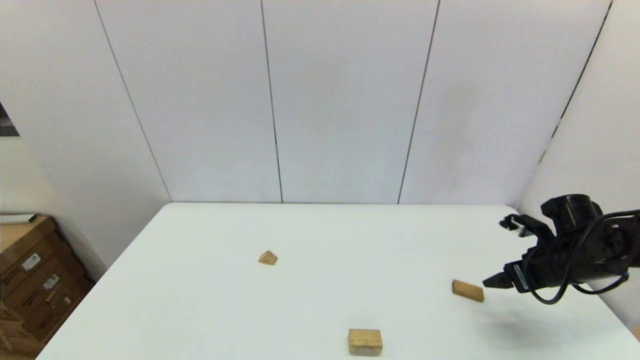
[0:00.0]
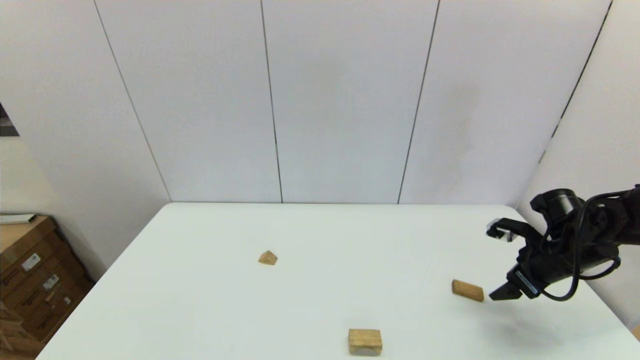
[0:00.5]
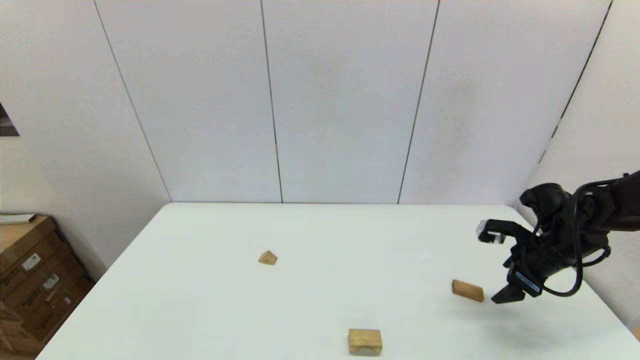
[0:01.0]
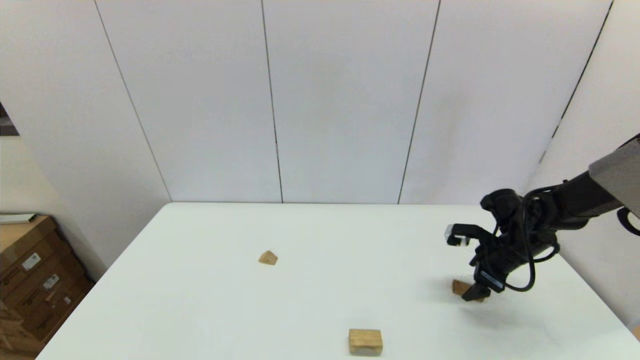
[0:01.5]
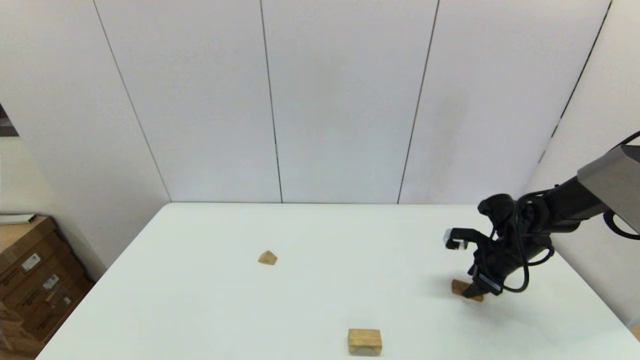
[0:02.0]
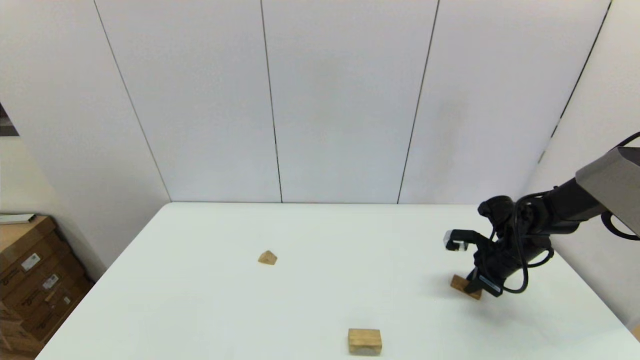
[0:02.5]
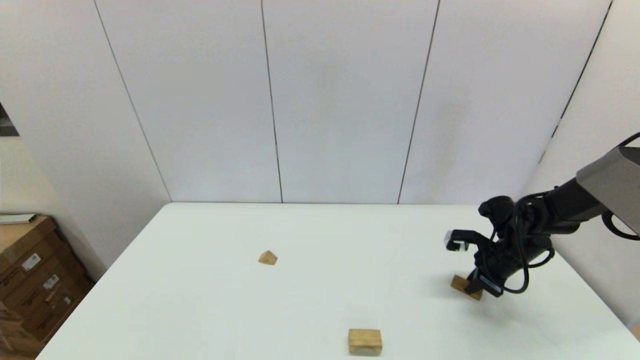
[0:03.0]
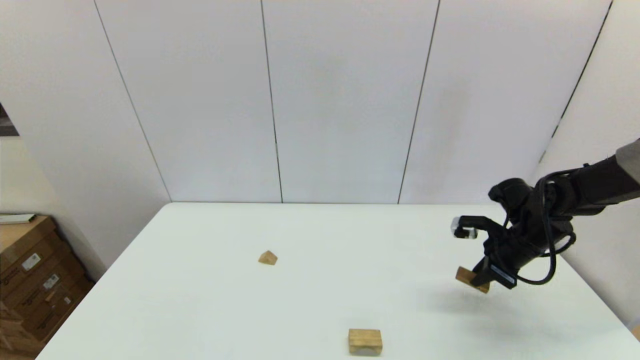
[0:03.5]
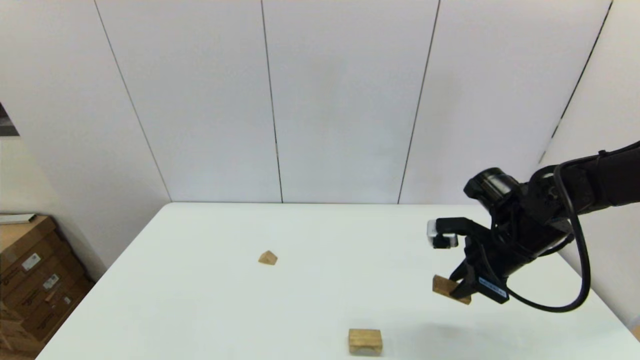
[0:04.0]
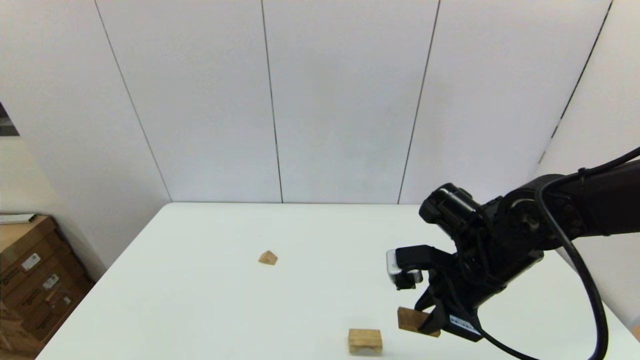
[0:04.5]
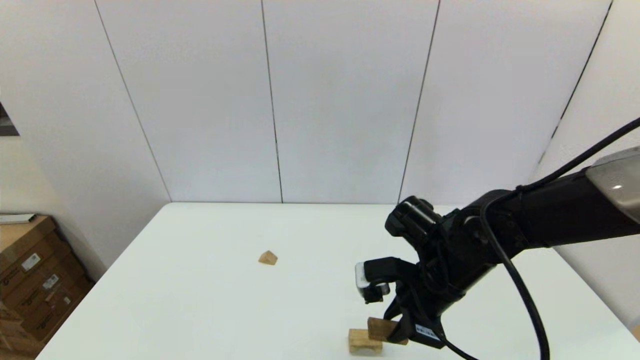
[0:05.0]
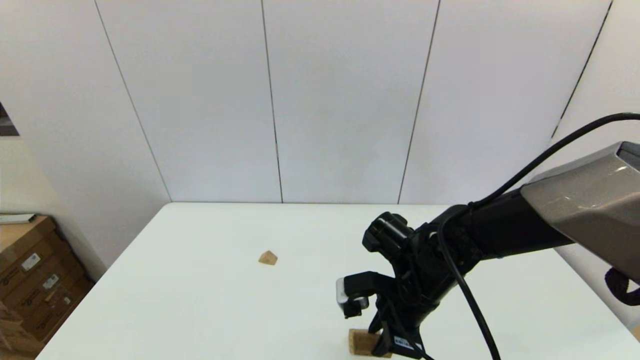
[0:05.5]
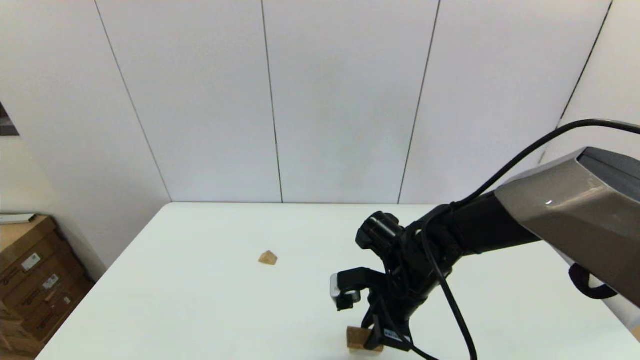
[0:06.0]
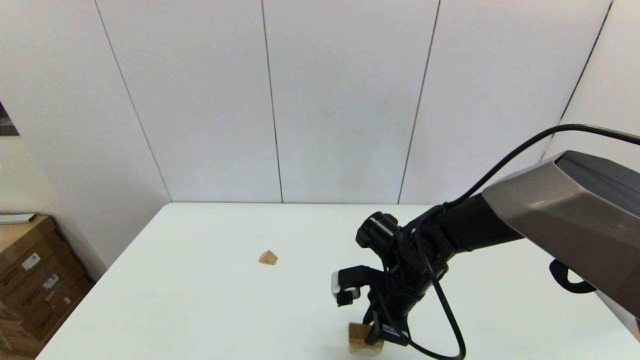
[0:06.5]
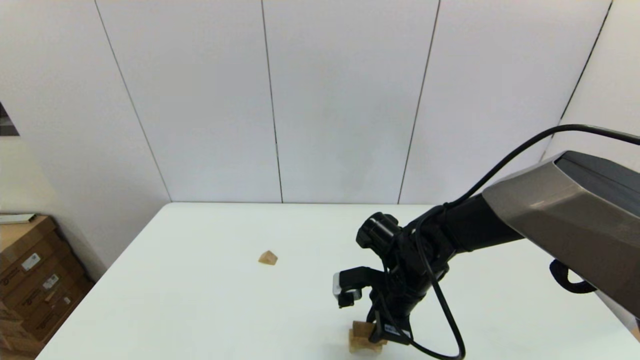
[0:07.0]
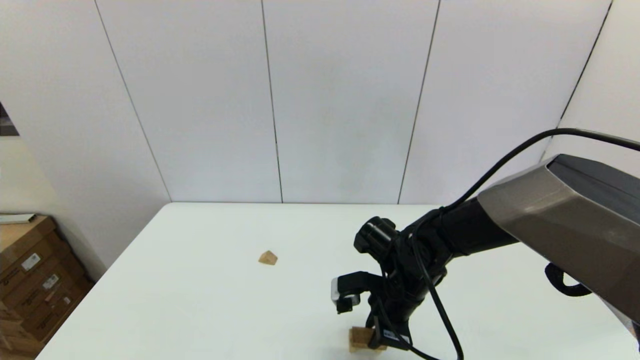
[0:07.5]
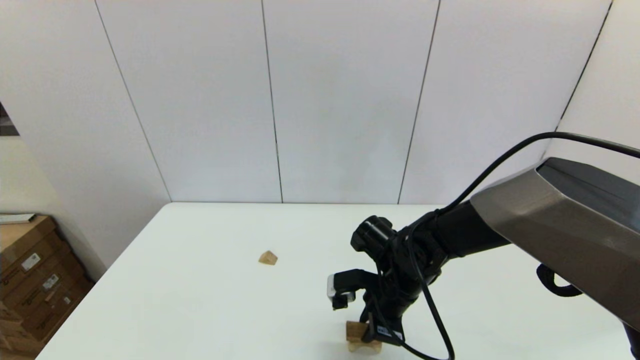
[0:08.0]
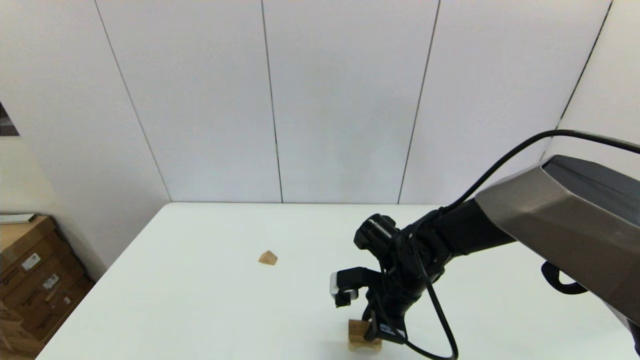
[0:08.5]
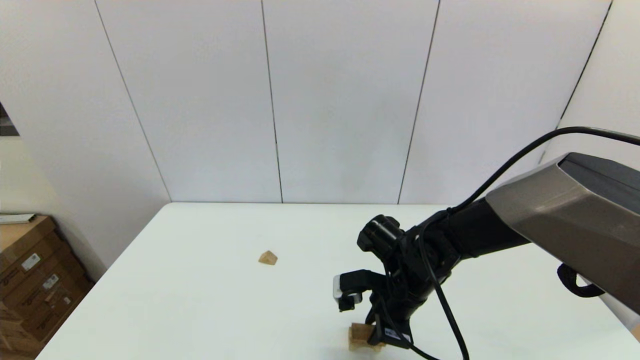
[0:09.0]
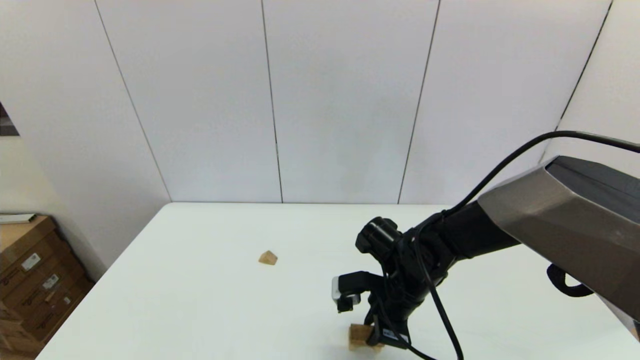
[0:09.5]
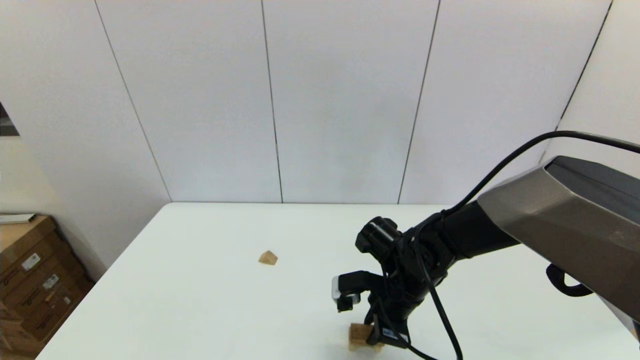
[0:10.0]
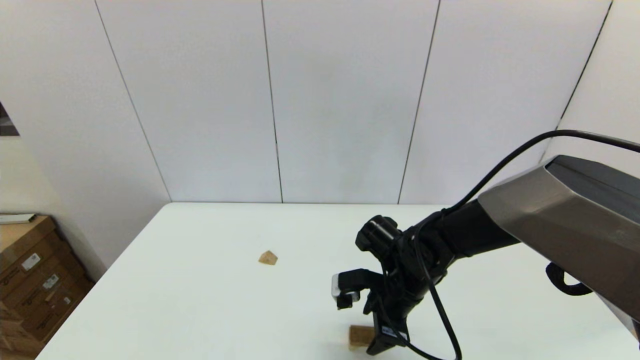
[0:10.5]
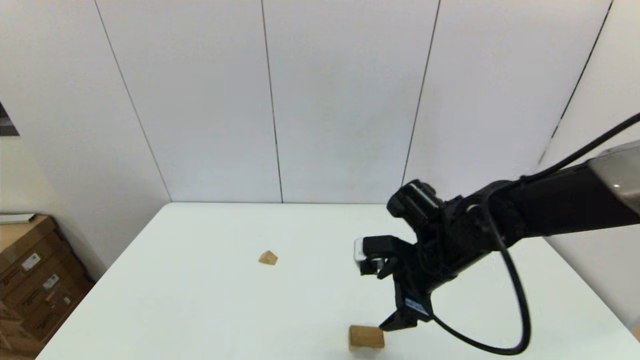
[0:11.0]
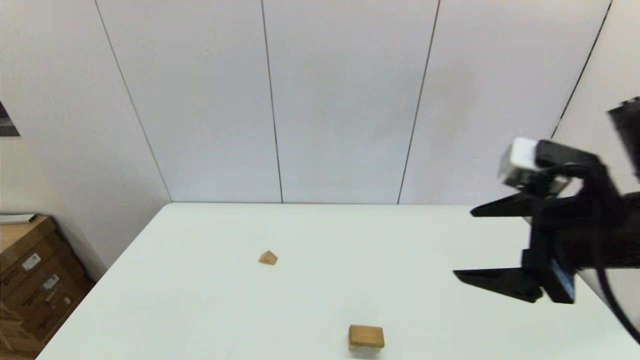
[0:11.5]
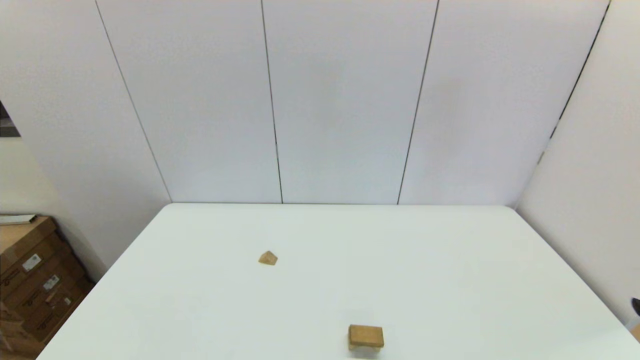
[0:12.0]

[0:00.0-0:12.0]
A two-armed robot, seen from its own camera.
Task of the whole recording: place the arched building blocks in the center of the table, set up the rectangular building blocks, and then set up the triangular building blocks.
Step, 0:00.0 to 0:02.0: Grasp the box-shaped block with the right gripper.
Step, 0:02.5 to 0:10.0: Place the box-shaped block onto the arch-shaped block with the right gripper.
0:00.0 to 0:02.0: The right gripper goes some 5 cm forward, and closes up.
0:02.0 to 0:04.0: The right gripper travels upward, to the left and backward by roughly 15 cm, and closes up.
0:04.0 to 0:06.0: The right gripper is displaced to the left by some 15 cm.
0:06.0 to 0:08.0: The grippers stay close to where they were, moving slightly.
0:08.0 to 0:10.0: The two grippers keep their place.
0:10.0 to 0:12.0: The right gripper heads backward, to the right and upward, covering some 40 cm, and opens.

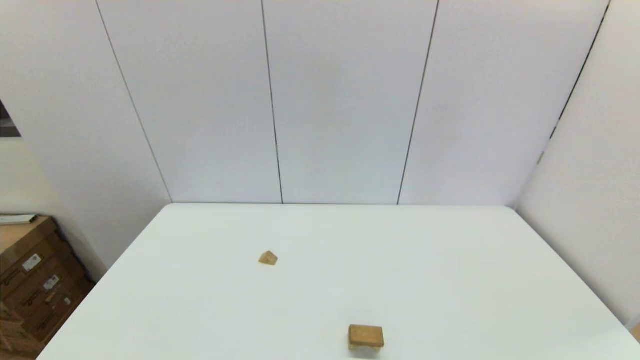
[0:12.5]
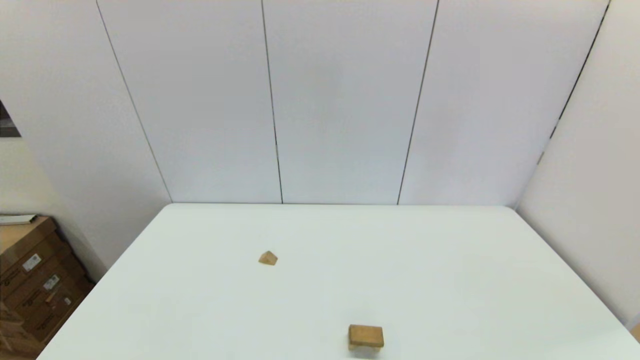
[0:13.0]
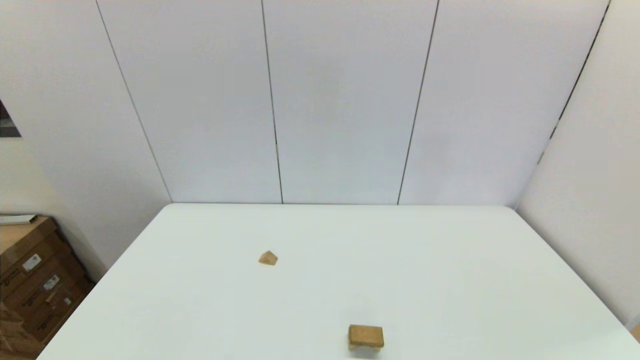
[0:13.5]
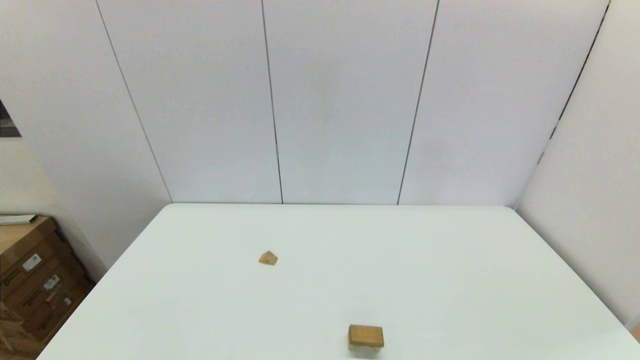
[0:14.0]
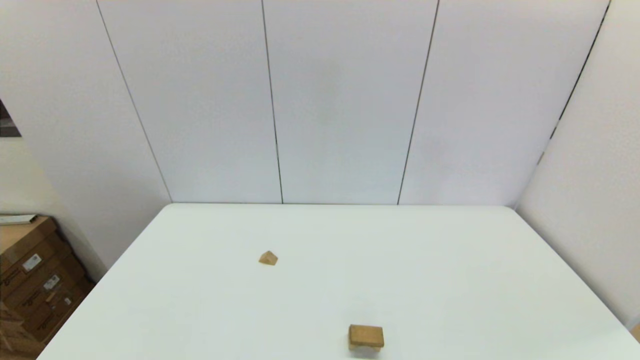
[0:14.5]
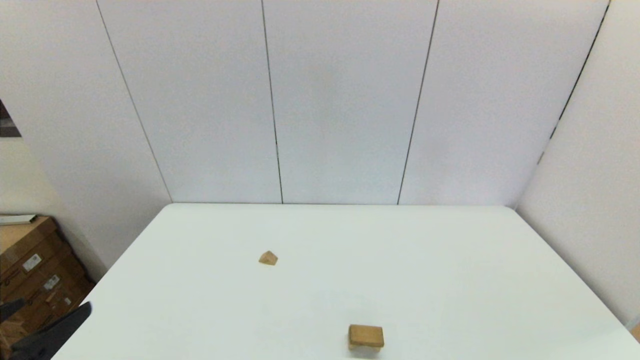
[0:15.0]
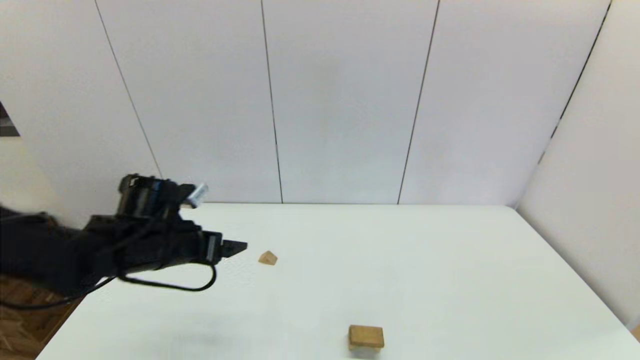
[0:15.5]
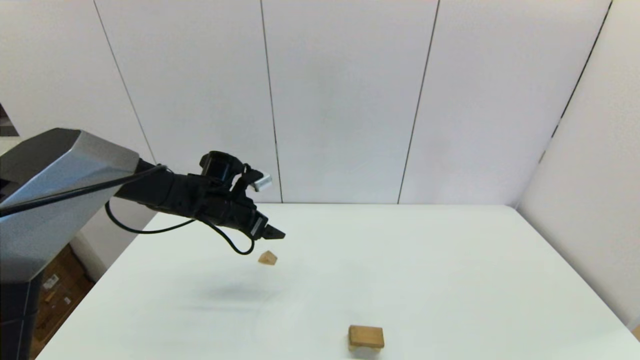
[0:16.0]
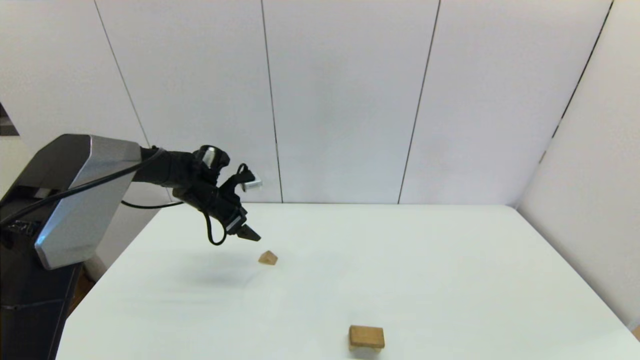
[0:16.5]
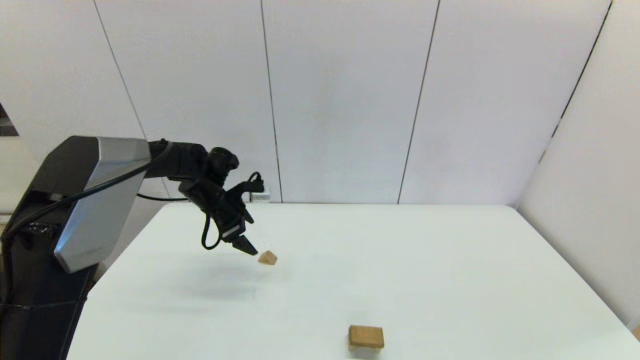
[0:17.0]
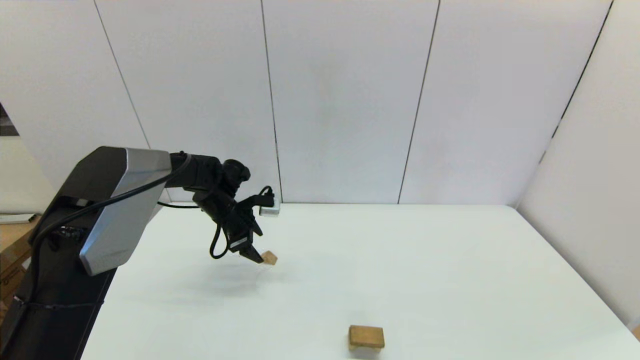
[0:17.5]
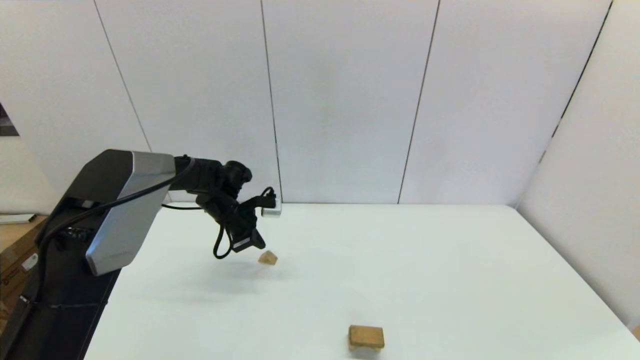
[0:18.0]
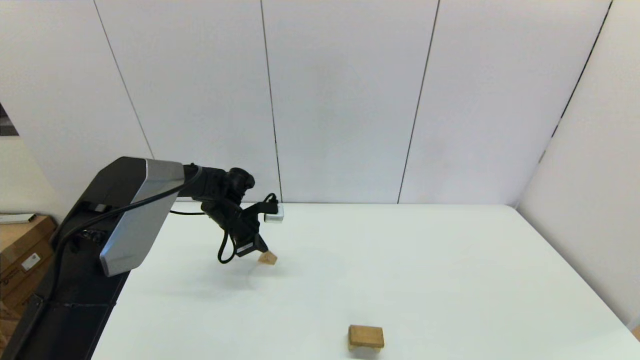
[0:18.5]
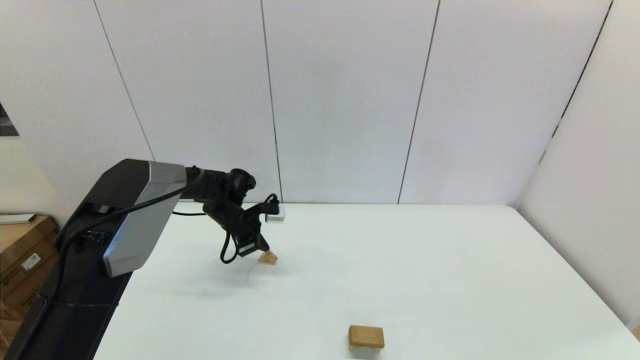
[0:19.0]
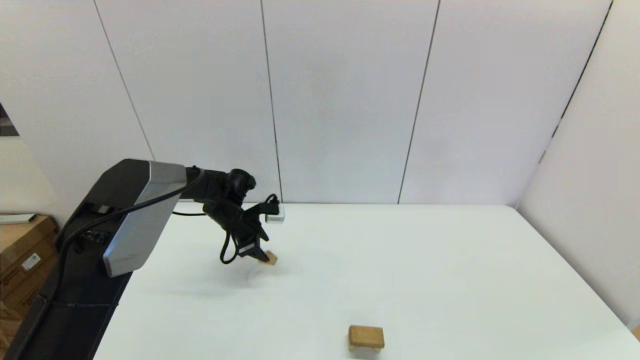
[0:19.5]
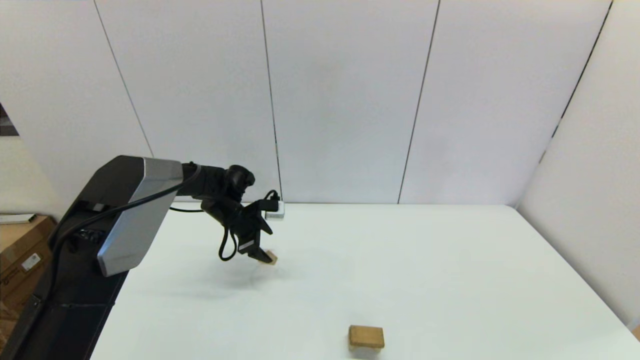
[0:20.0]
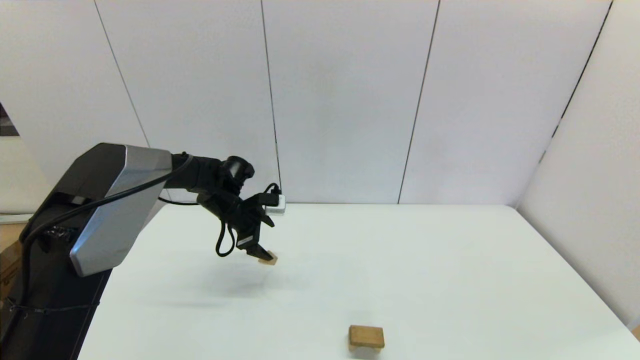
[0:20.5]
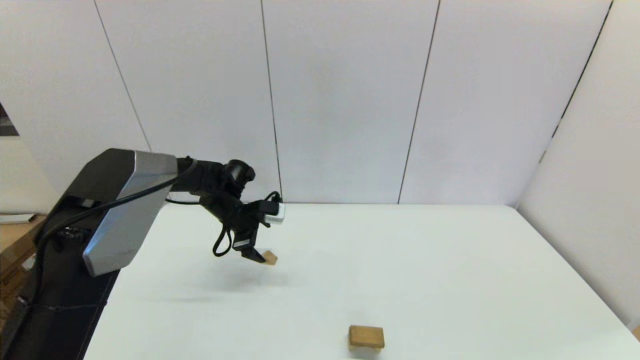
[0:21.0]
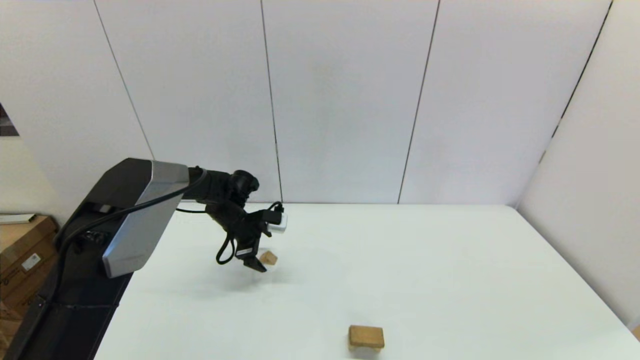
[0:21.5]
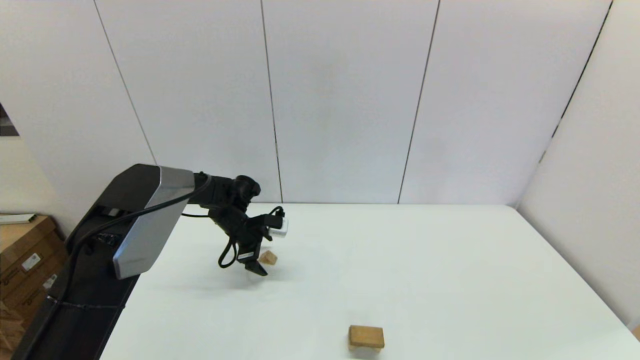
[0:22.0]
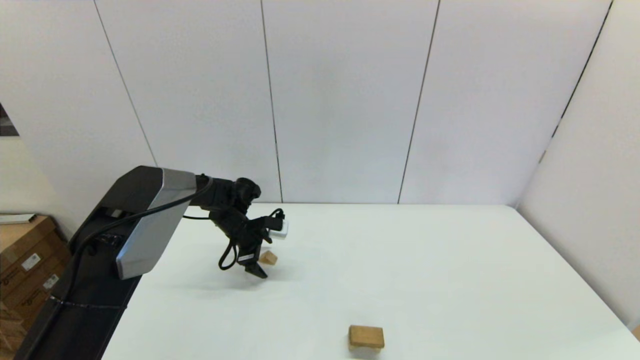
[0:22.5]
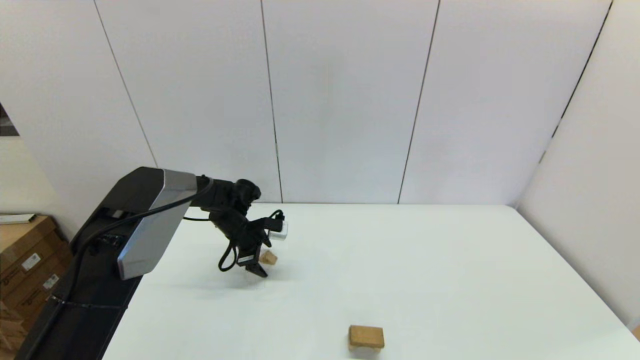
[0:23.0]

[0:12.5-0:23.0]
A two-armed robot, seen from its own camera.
Task of the whole recording: place the arched building blocks in the center of the table, set up the rectangular building blocks, and then set up the triangular building blocks.
0:14.5 to 0:16.5: The left gripper moves forward, roughly 50 cm.
0:16.5 to 0:19.0: The left gripper travels downward by about 5 cm, and closes up.
0:19.0 to 0:21.0: The left gripper opens up.
0:21.0 to 0:23.0: The left gripper changes place by roughly 5 cm.
